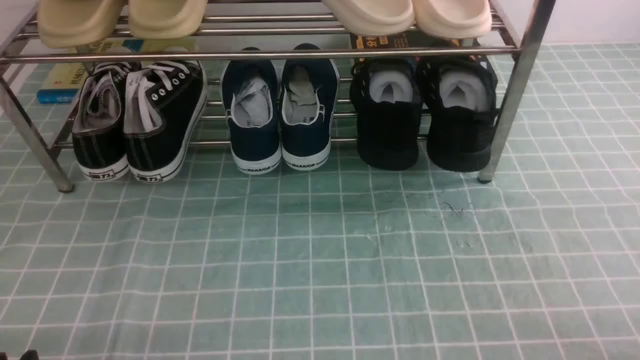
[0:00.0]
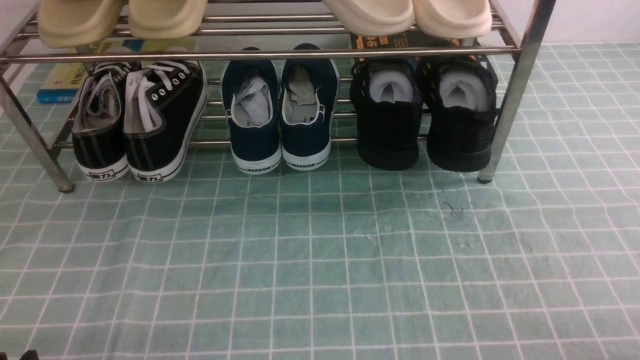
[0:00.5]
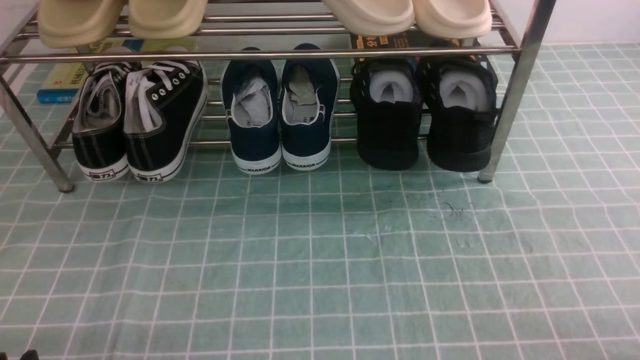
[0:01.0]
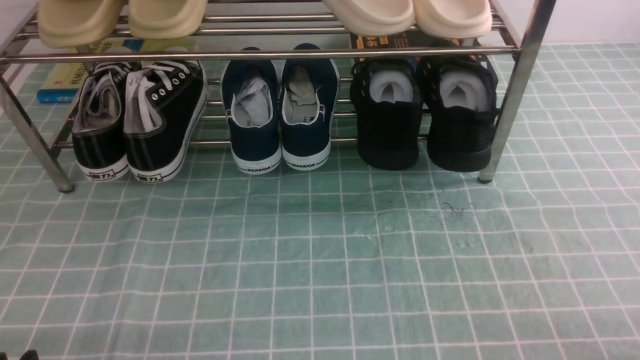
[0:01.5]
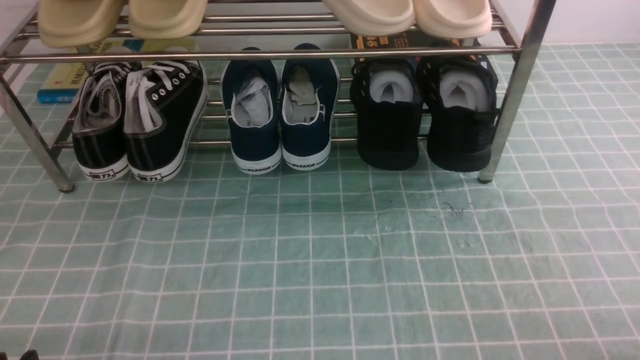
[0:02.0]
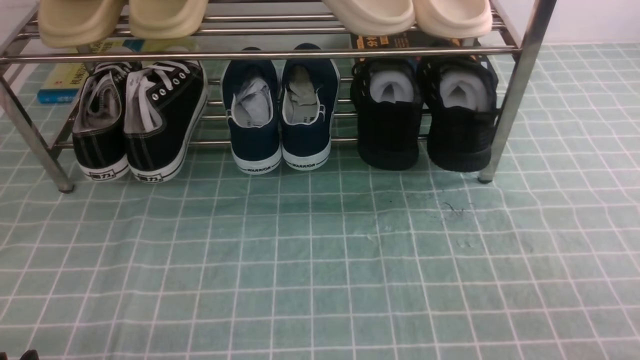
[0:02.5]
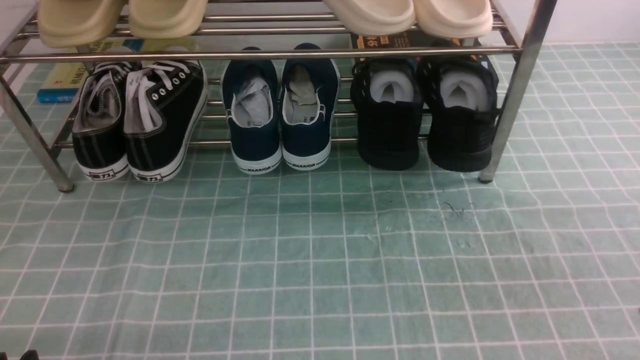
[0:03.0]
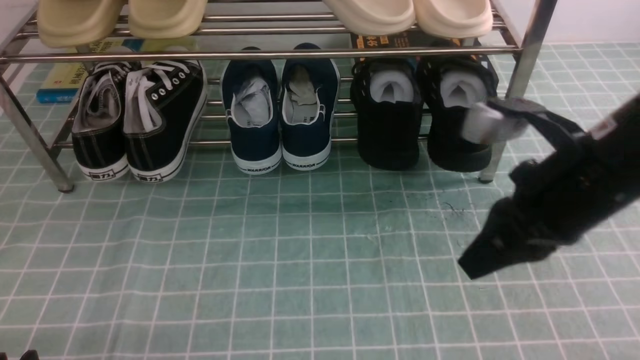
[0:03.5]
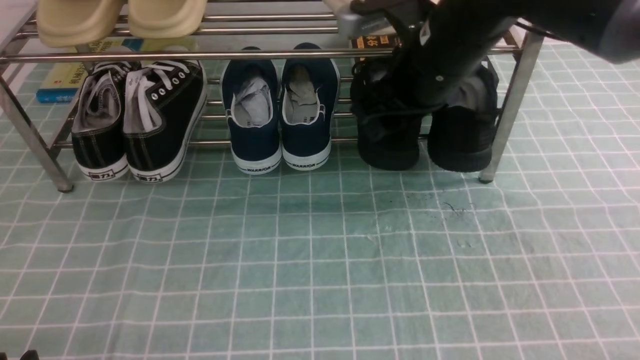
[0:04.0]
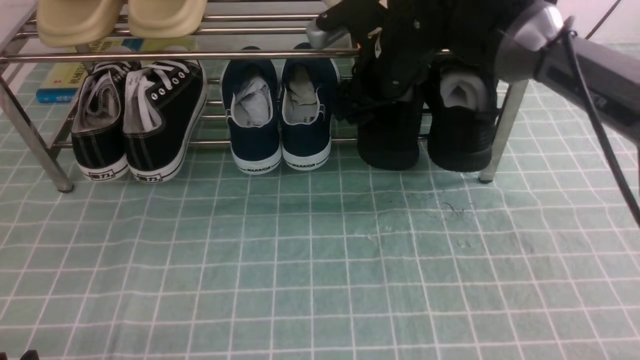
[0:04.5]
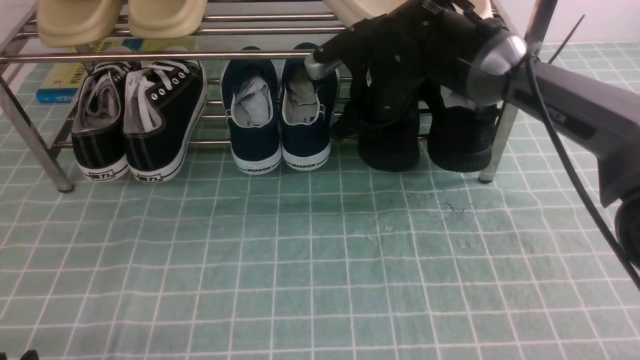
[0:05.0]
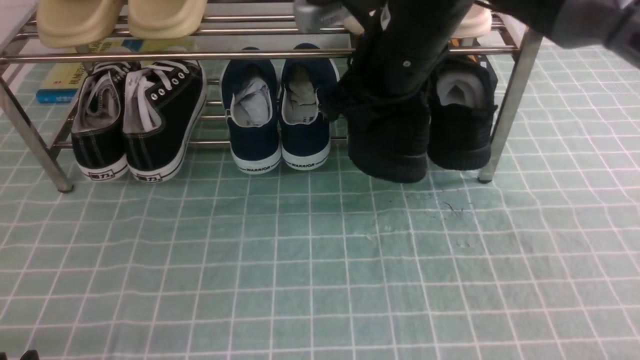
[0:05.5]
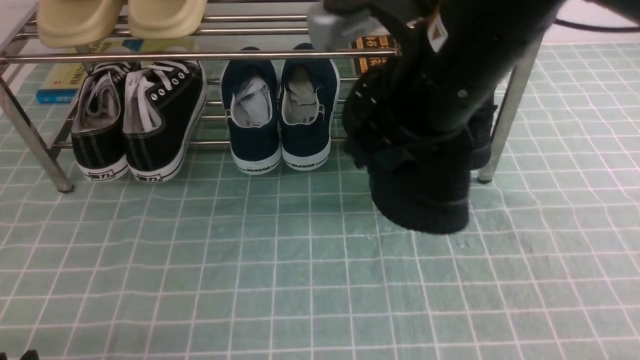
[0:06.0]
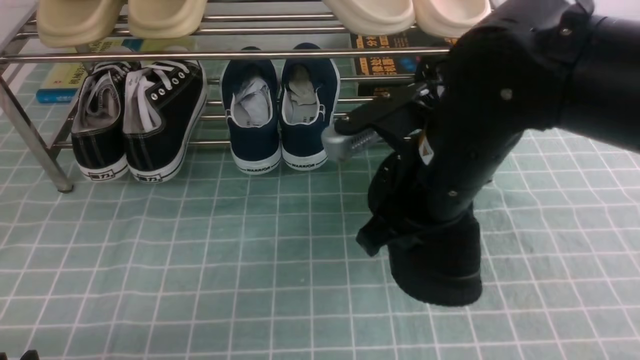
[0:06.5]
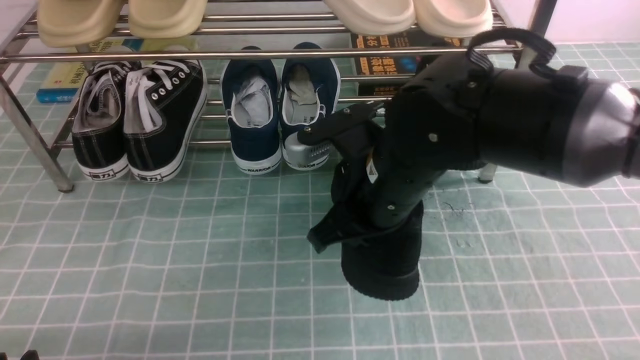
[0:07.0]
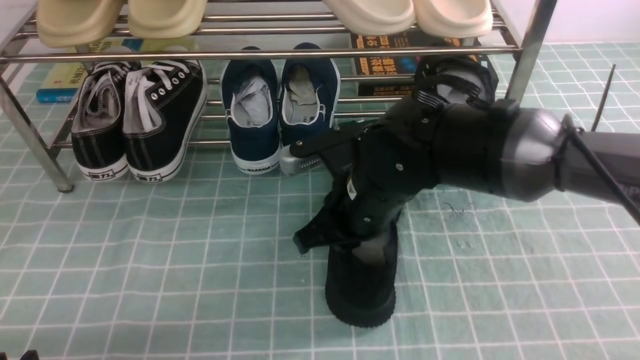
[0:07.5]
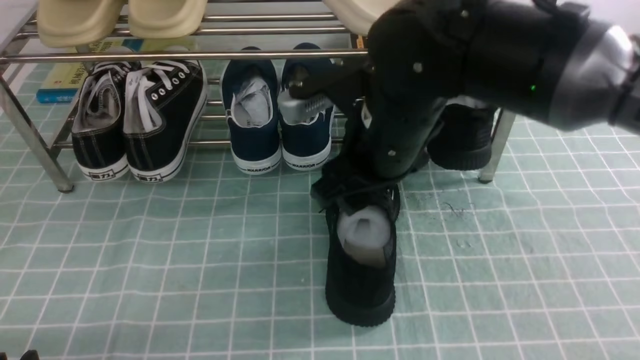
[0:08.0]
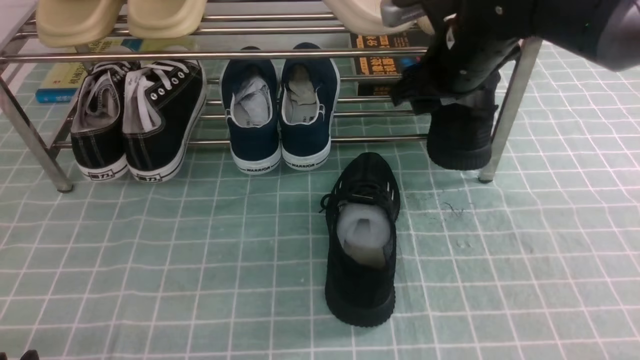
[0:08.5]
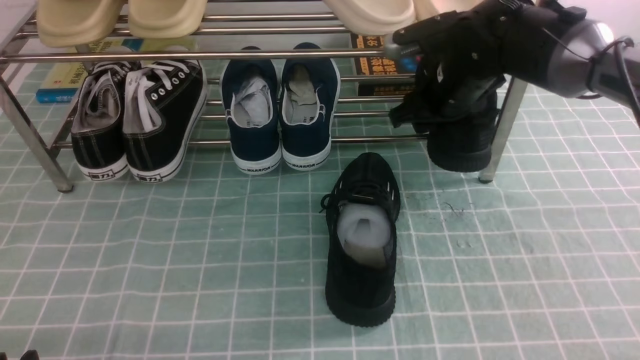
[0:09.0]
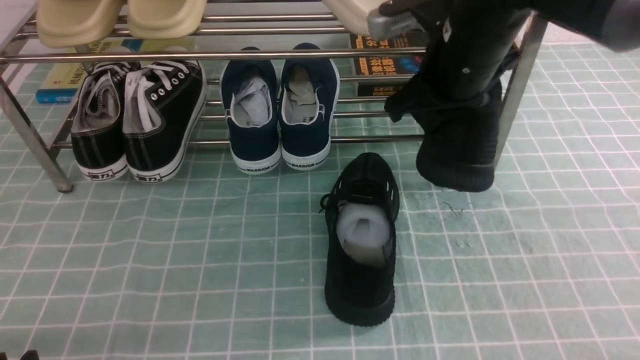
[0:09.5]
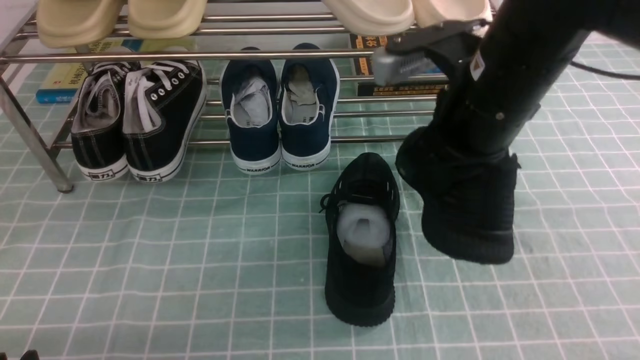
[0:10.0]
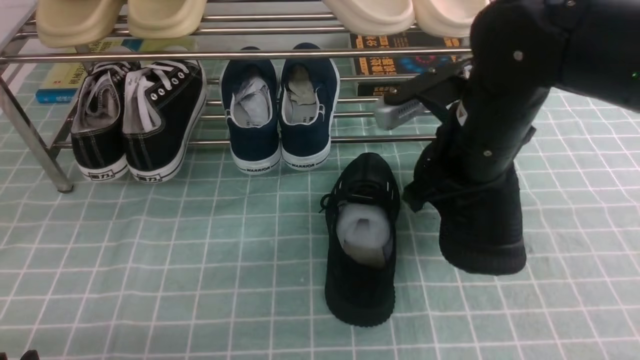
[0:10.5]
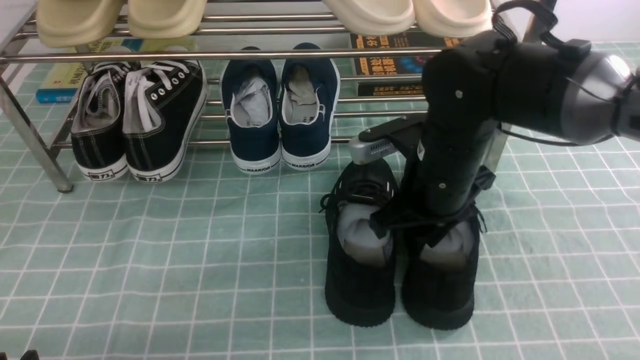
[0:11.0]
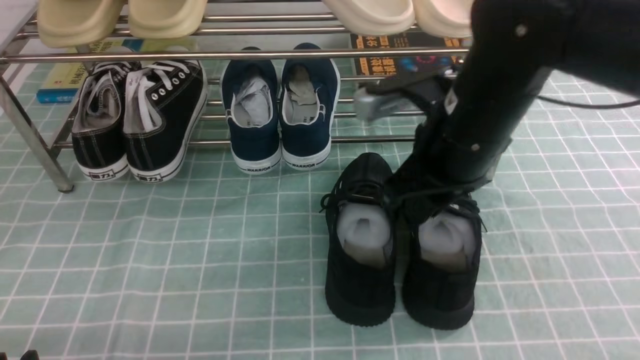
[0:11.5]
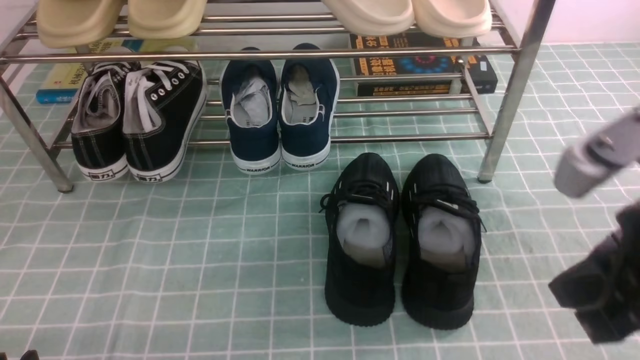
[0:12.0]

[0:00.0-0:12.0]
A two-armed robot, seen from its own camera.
Step, 0:00.0 to 0:04.5: use the right arm to clamp a shoe on the right side of the shoe rack.
Step, 0:05.0 to 0:07.5: use the right arm to take out the clamped shoe from the shoe rack and put it down.
Step, 0:08.0 to 0:09.0: use the right arm to clamp a shoe on the right side of the shoe rack.
Step, 0:09.5 to 0:11.5: use the right arm to take out the clamped shoe from the shoe rack and put it down.
0:02.0 to 0:04.0: The right gripper goes approximately 40 cm forward, to the left and upward, and closes, then reopens.
0:04.0 to 0:06.0: The right gripper is displaced backward by roughly 5 cm, and closes up.
0:06.0 to 0:08.0: The right gripper shifts about 10 cm downward, and opens.
0:08.0 to 0:10.0: The right gripper is displaced to the right and upward by roughly 10 cm, moves about 15 cm forward and comes back, and closes its fingers.
0:10.0 to 0:12.0: The right gripper travels backward and to the right by approximately 15 cm, and opens, then closes again.

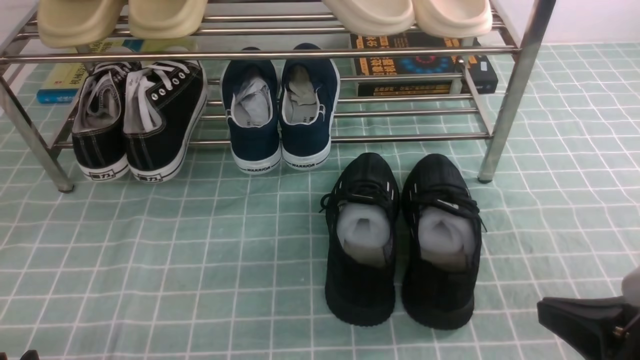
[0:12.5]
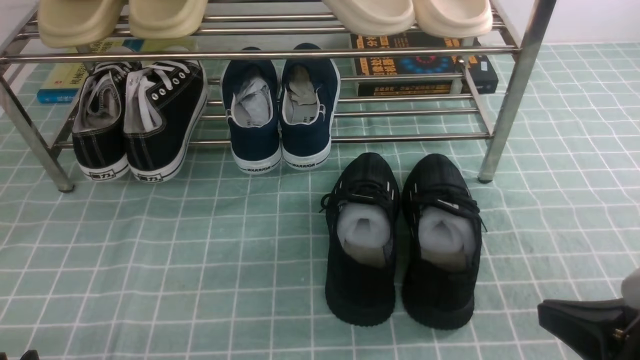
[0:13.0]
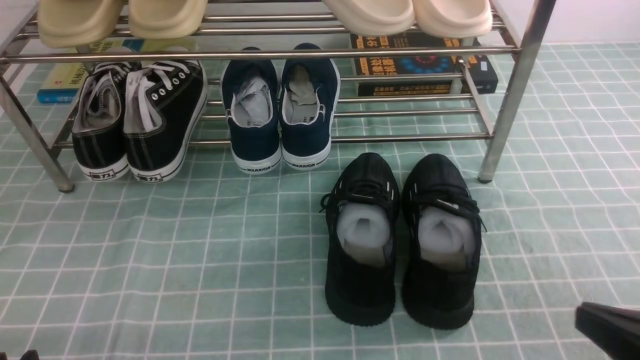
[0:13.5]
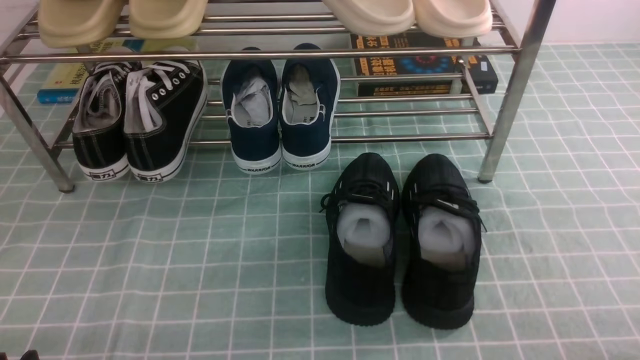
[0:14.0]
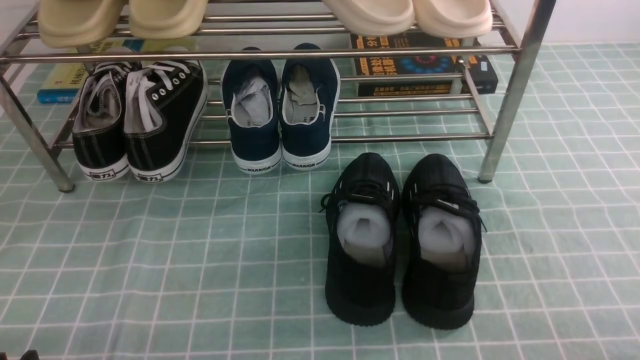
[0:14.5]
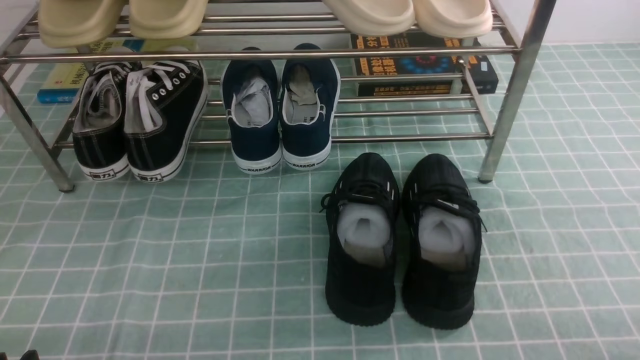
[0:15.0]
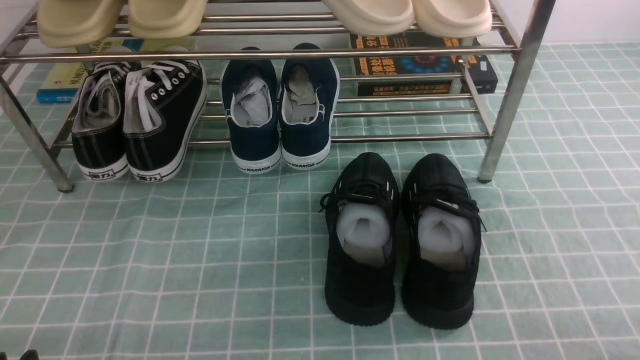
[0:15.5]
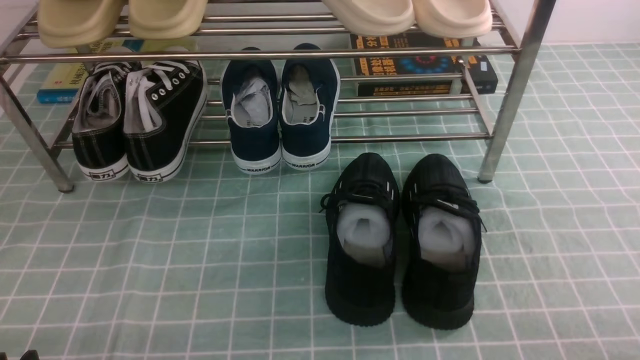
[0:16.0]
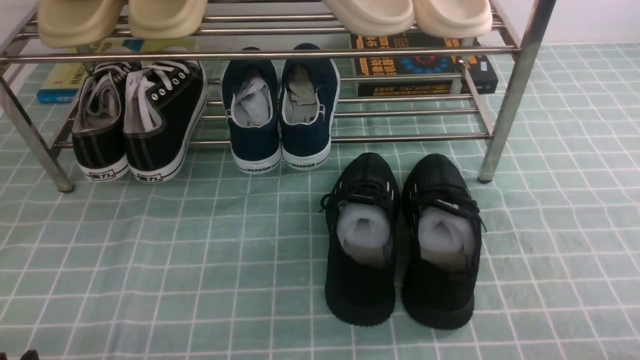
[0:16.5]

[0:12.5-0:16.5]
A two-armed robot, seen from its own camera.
0:12.5 to 0:14.5: The right gripper travels to the right, downward and backward by about 10 cm.
0:14.5 to 0:16.5: Both grippers stay about where they are.
